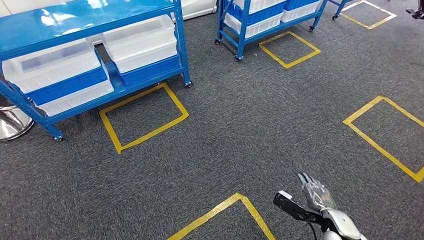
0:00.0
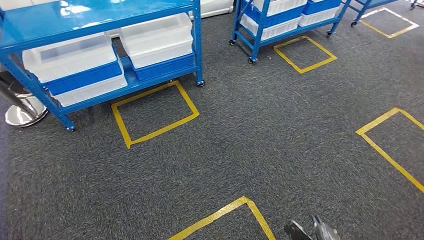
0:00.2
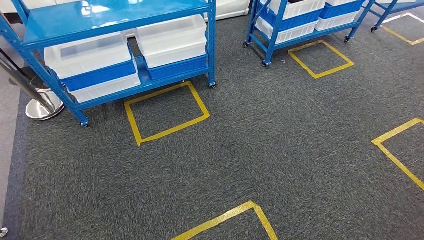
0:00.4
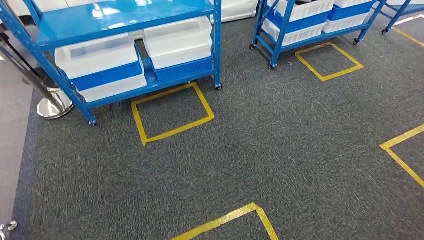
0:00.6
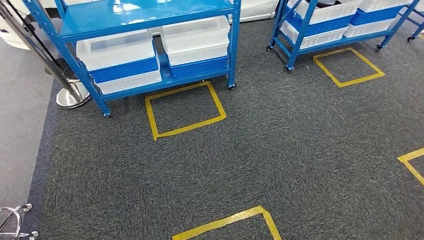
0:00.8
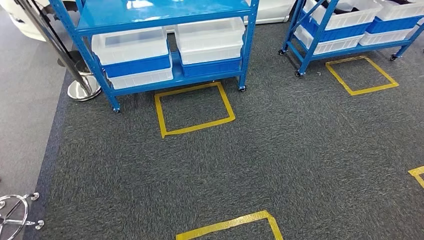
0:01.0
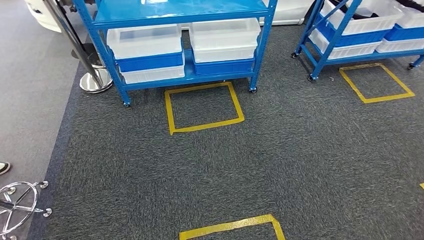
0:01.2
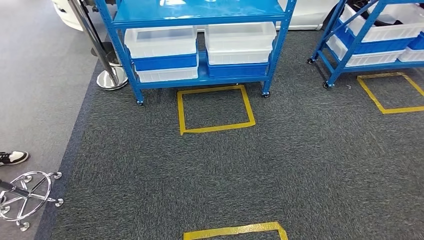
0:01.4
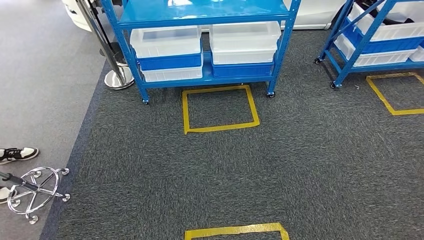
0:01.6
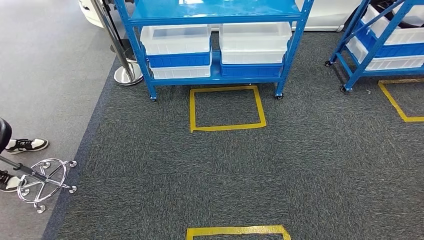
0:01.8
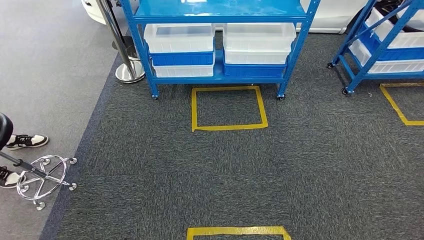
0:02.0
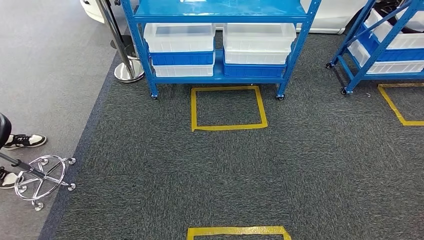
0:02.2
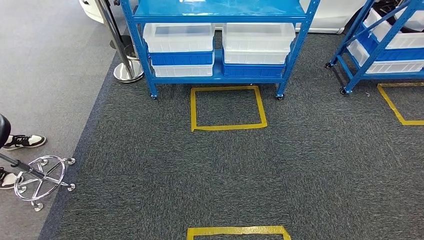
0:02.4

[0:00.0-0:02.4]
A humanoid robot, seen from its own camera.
Step, 0:00.0 to 0:02.4: Return to the initial position at the shelf.
